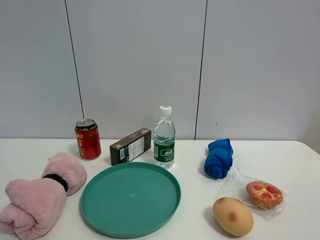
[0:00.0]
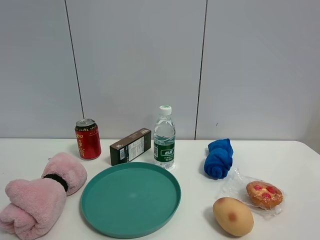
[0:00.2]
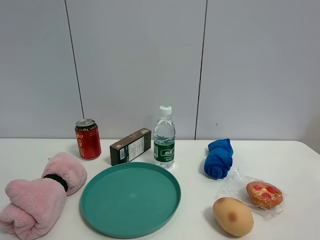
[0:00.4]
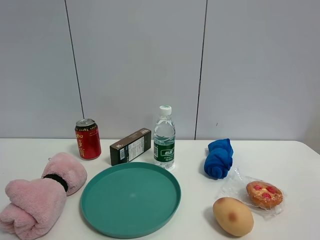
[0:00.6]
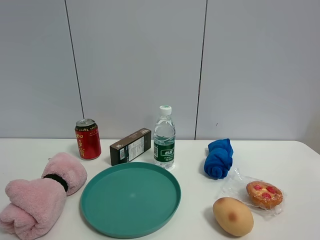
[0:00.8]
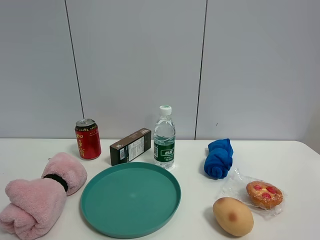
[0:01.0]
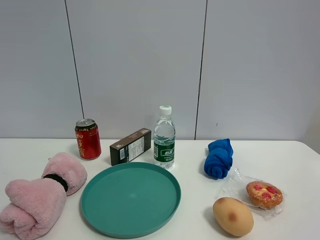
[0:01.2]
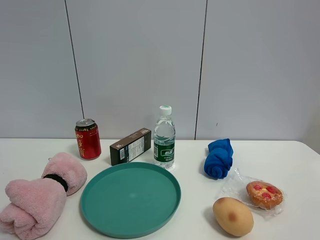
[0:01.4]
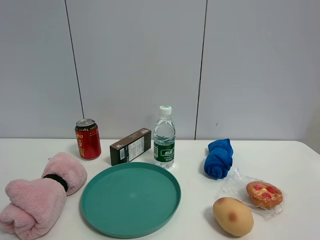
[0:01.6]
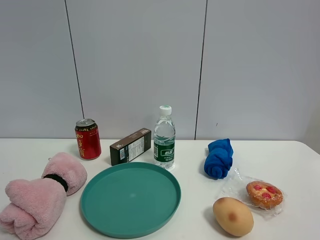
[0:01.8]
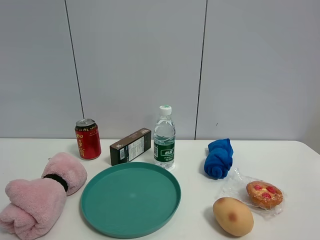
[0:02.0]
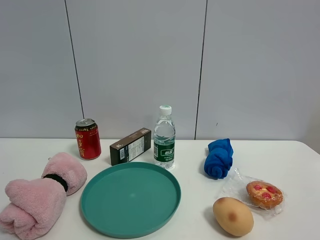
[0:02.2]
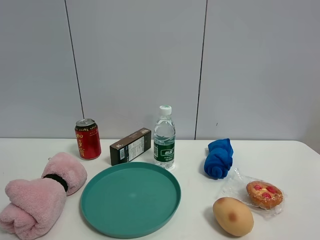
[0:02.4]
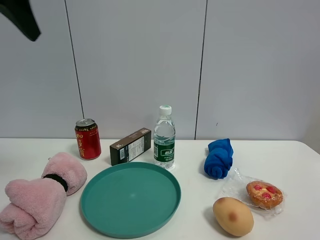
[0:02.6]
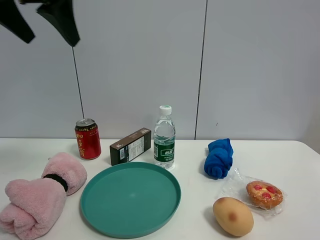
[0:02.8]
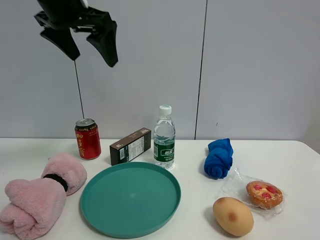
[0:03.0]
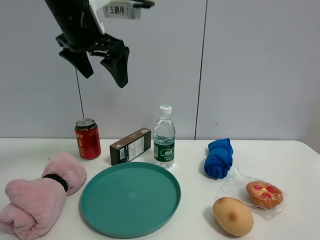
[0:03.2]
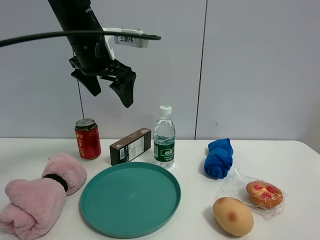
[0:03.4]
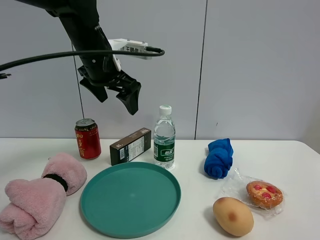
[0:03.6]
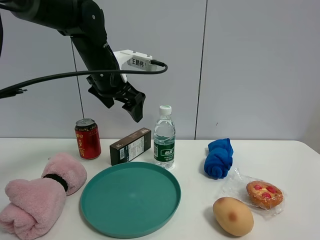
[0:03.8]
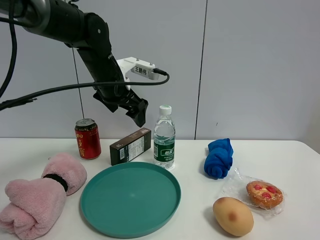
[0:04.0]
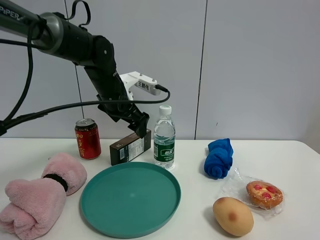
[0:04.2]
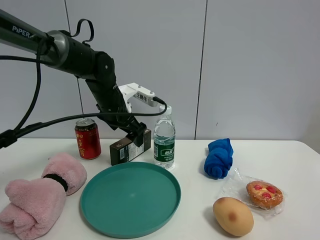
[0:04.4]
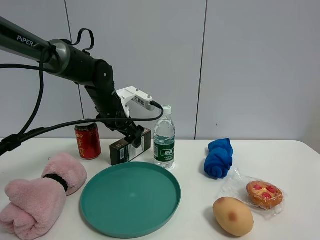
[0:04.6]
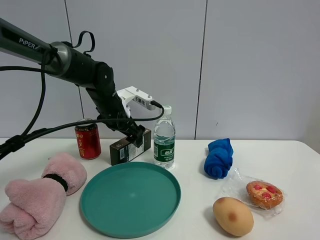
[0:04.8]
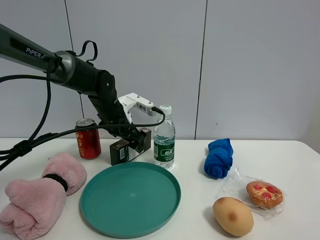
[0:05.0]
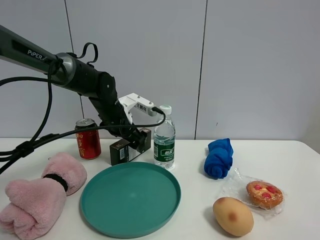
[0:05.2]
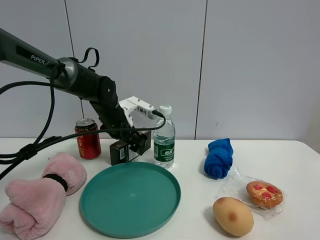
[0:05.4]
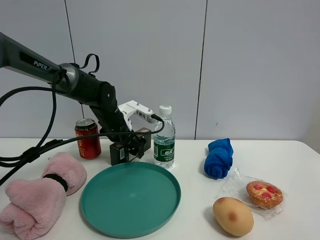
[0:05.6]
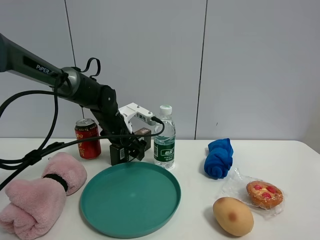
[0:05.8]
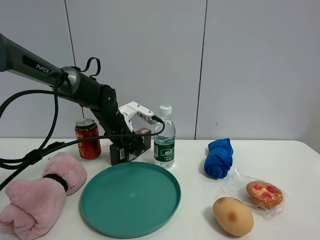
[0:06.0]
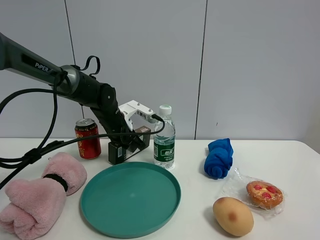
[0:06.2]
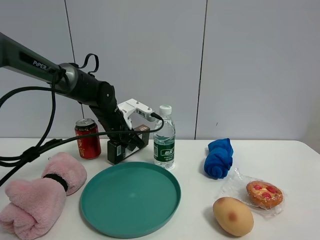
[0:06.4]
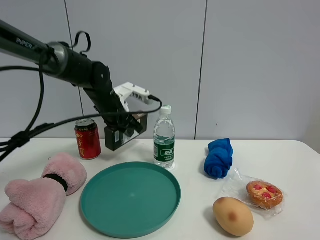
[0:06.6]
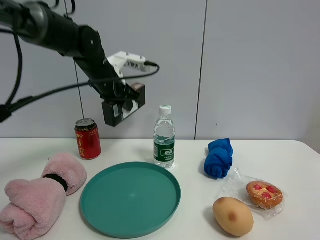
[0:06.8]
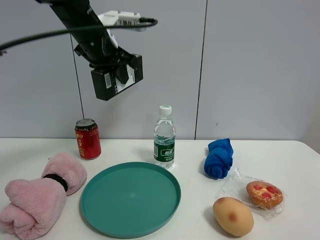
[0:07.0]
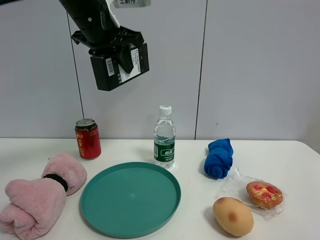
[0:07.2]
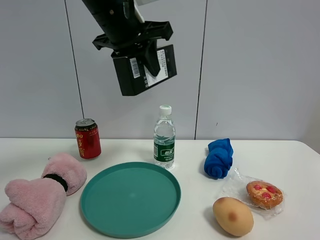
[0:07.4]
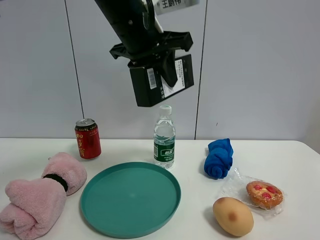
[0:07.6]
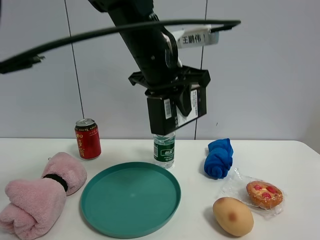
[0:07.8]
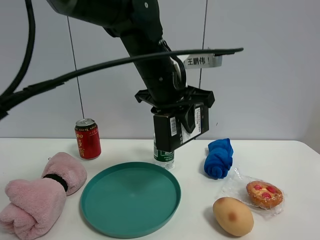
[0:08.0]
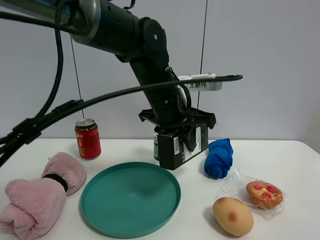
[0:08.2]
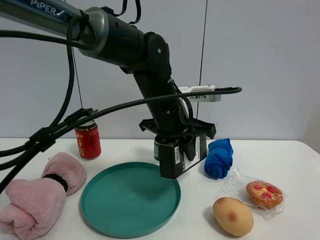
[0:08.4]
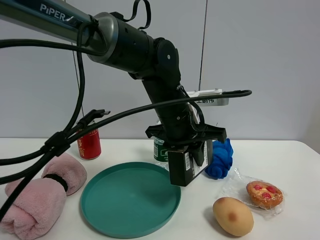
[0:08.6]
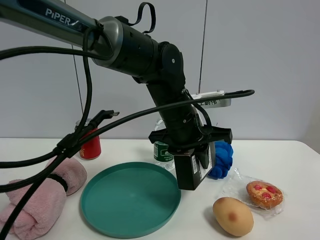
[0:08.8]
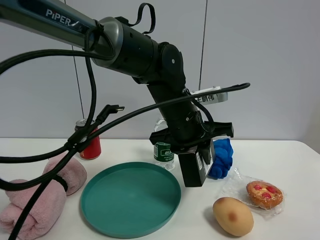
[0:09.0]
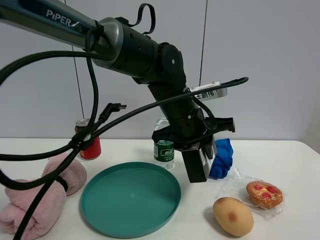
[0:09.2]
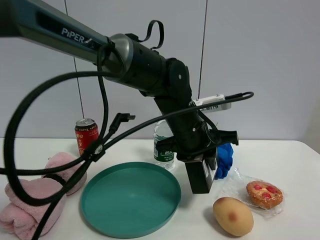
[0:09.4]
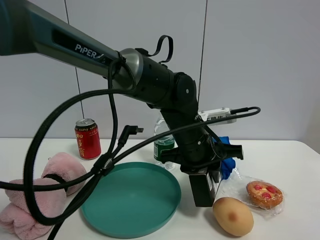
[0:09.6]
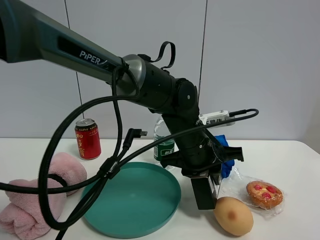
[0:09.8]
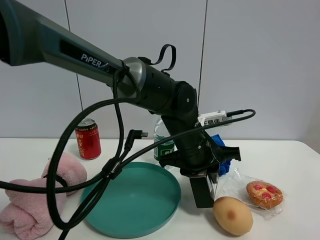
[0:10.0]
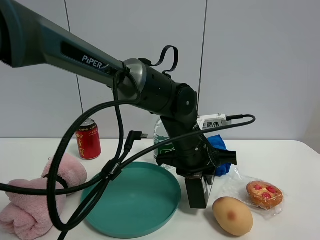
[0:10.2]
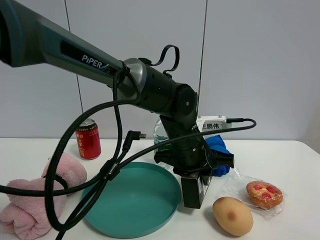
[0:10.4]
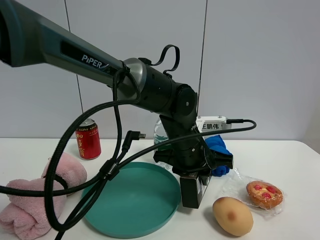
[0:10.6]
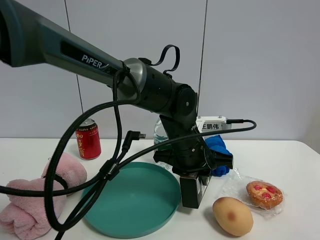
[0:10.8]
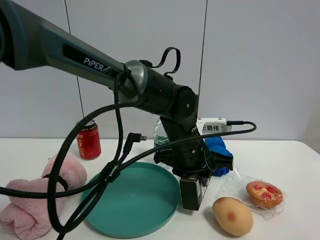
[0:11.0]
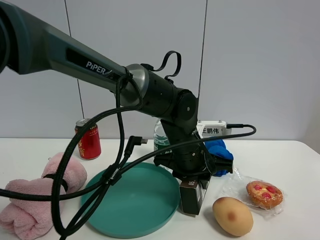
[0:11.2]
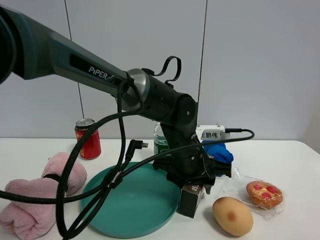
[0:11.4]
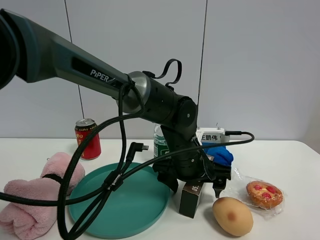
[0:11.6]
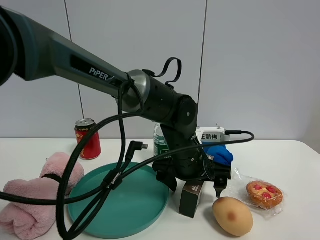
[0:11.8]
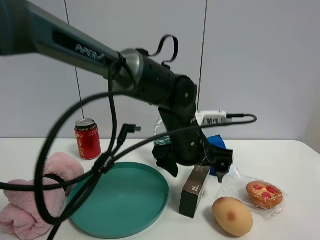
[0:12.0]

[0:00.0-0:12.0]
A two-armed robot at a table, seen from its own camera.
Task of the whole recording: the gripper move the object.
Step, 0:00.0 to 0:06.2: Grasp the brown box with the left gripper.
Step, 0:06.4 to 0:11.6: Place the brown box on the table with the left gripper.
0:01.6 to 0:03.0: The left gripper shifts some 40 cm forward and to the right.
0:03.0 to 0:04.4: The left gripper shifts roughly 25 cm downward and forward.
0:04.4 to 0:06.0: The left gripper is displaced downward by about 5 cm, and closes.
0:06.0 to 0:07.6: The left gripper heads upward and backward, covering some 25 cm.
0:07.6 to 0:09.0: The left gripper moves downward and to the right, approximately 15 cm.
0:09.0 to 0:10.4: The left gripper goes approximately 5 cm downward.
0:10.4 to 0:12.0: The left gripper opens its fingers.

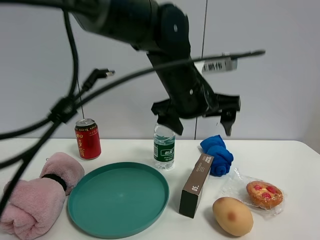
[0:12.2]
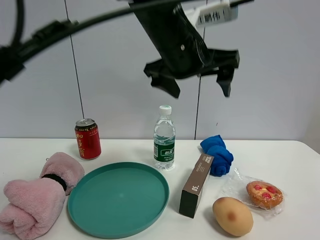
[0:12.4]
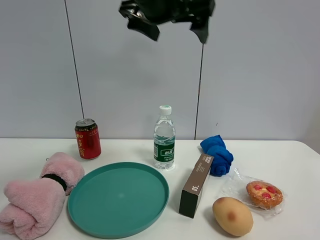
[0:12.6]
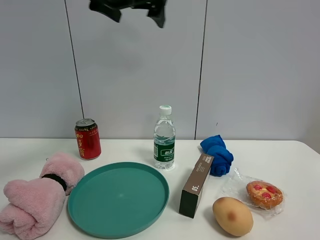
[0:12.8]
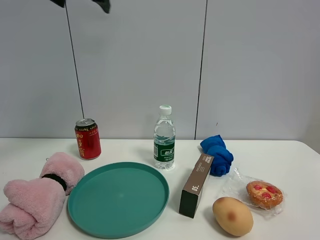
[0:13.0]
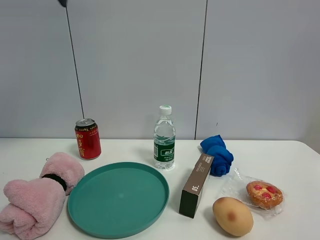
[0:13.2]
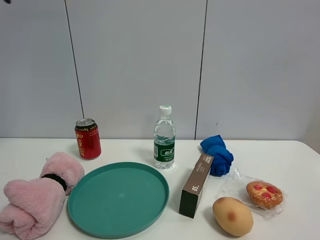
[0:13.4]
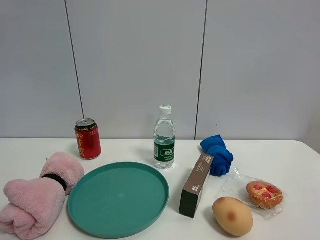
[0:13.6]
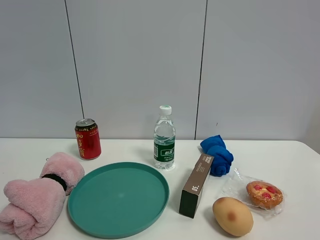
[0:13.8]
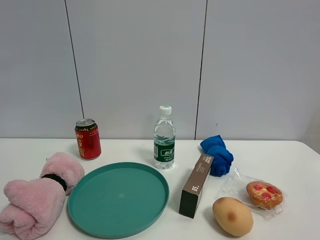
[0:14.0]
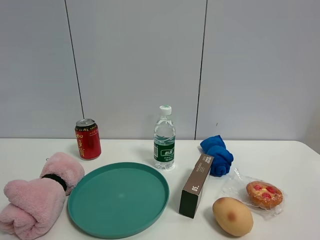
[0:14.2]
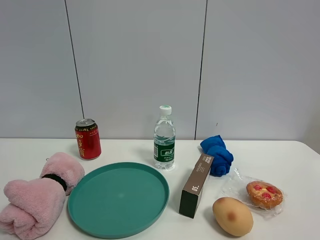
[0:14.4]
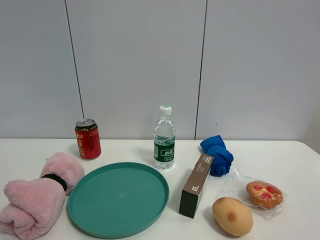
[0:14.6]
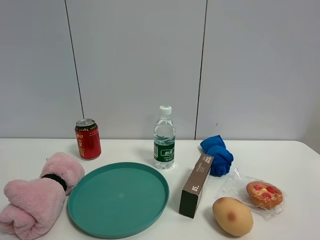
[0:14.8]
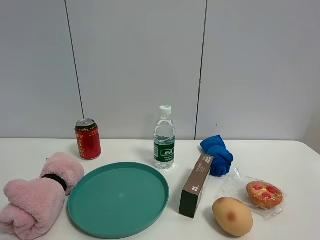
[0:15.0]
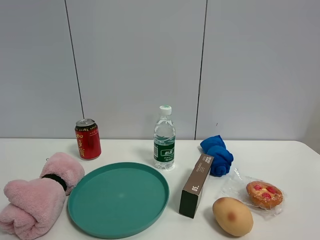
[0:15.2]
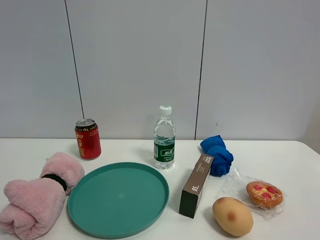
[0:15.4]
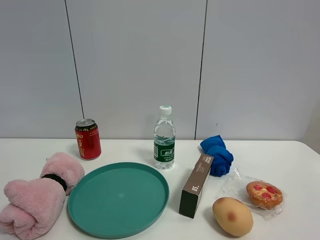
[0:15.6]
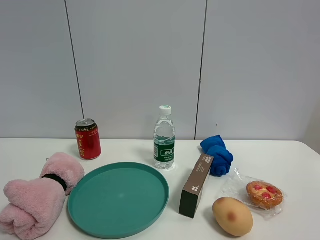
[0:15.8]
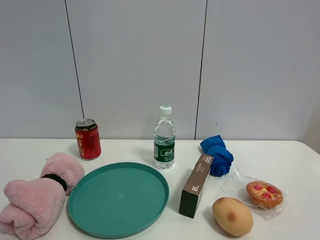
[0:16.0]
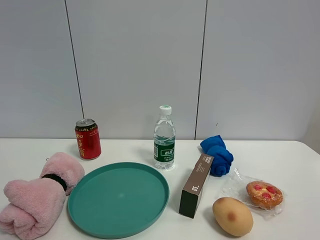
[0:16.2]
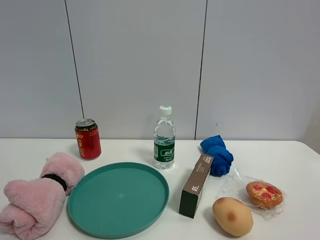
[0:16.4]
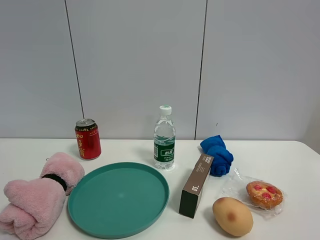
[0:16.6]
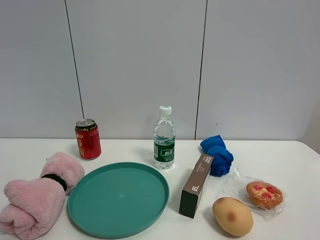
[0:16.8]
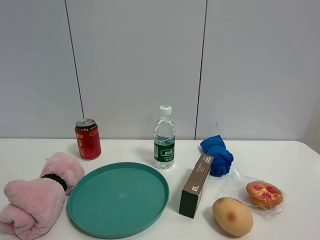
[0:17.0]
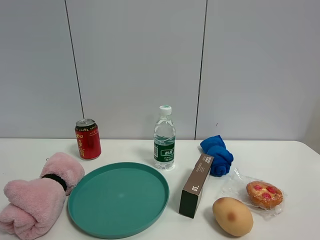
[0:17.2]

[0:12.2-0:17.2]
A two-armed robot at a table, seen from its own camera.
Task of the whole recording: the gripper move the object.
0:12.2 to 0:13.8: The left gripper travels to the left by some 40 cm.

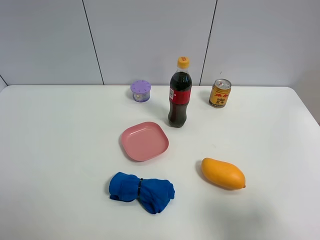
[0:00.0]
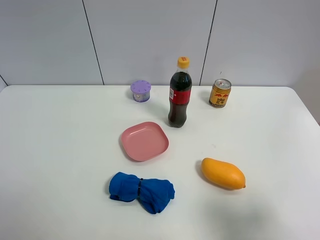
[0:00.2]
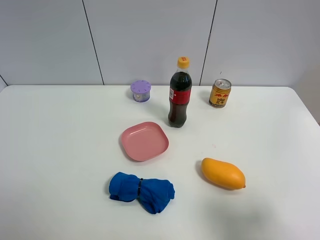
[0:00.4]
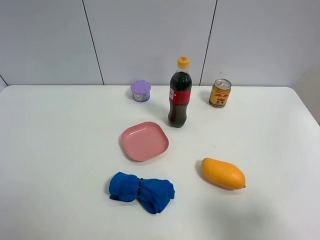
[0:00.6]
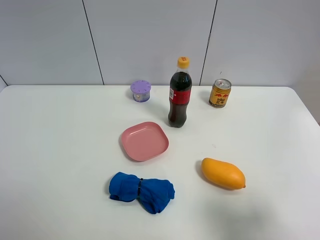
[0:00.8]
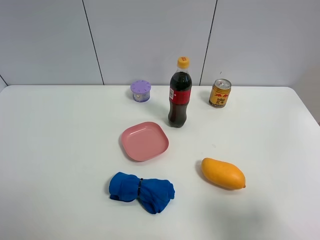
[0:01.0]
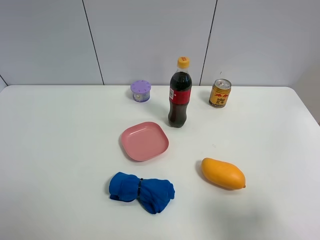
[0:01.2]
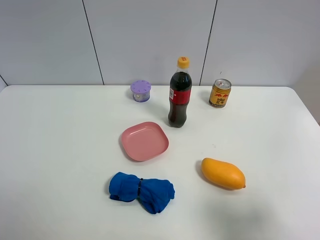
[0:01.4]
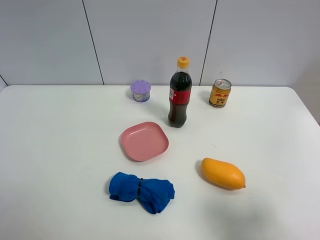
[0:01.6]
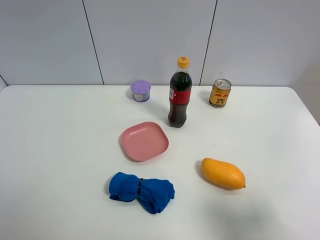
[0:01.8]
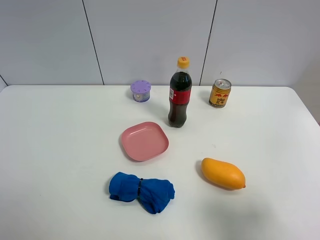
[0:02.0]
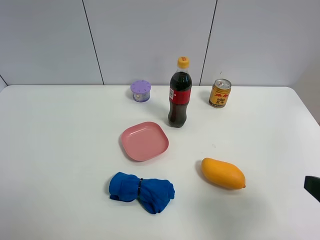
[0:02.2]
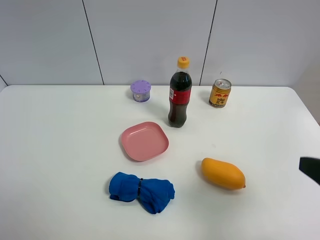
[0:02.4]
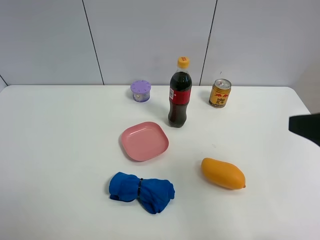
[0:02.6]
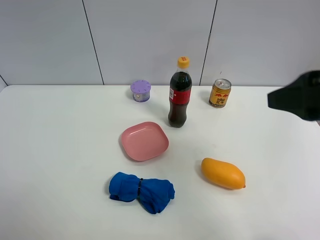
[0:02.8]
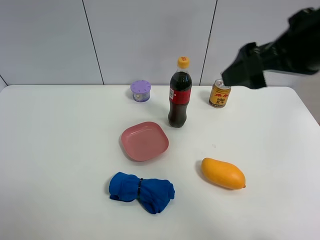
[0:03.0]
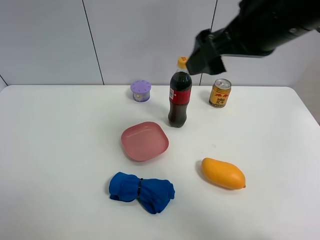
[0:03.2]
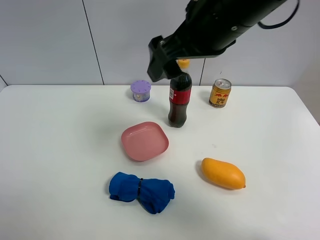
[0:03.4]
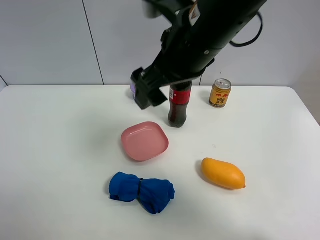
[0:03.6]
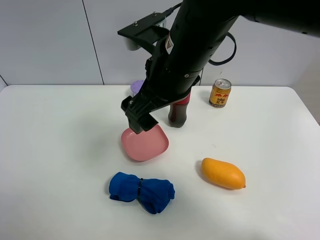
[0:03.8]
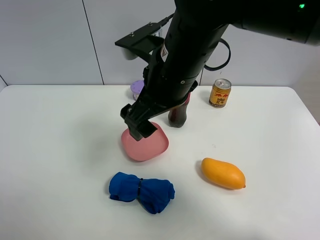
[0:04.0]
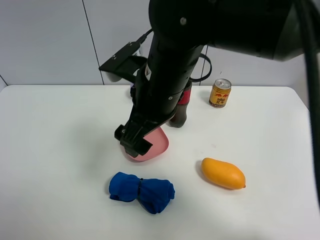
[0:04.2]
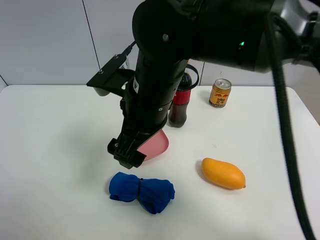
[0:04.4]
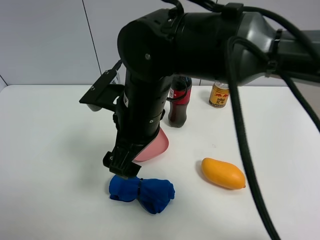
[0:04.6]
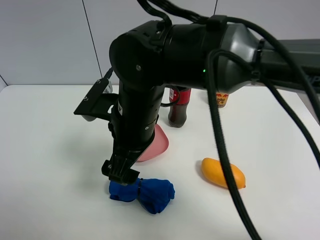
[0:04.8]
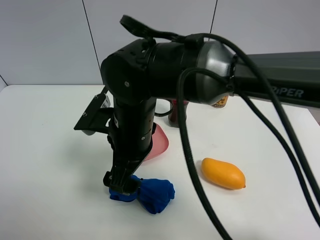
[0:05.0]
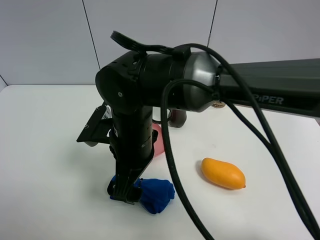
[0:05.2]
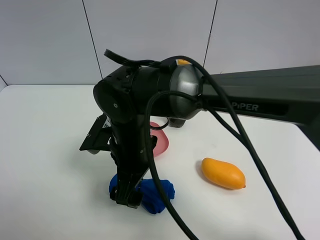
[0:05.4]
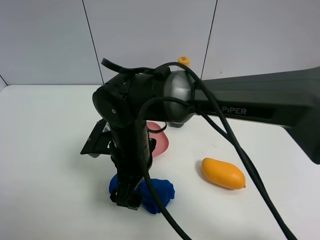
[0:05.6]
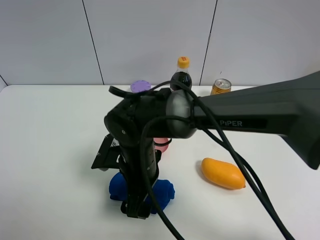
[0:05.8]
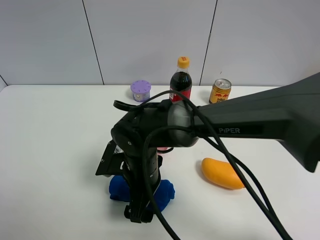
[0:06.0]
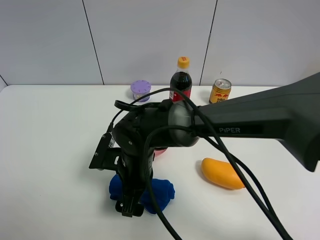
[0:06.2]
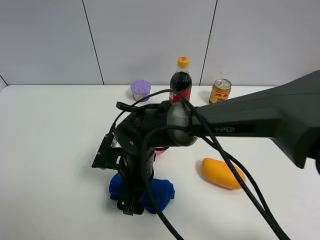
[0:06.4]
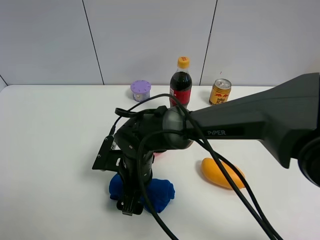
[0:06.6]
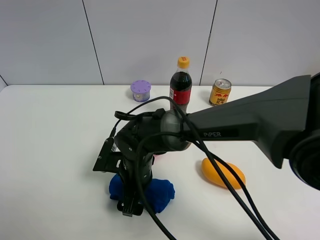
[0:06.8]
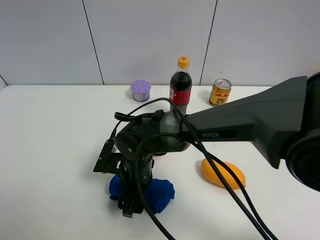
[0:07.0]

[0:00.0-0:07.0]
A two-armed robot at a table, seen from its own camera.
Task of the whole recording: the gripper move the object.
0:00.0 to 0:01.4: The two grippers keep their place.
0:01.4 to 0:02.8: The right gripper shifts about 20 cm forward, upward and to the left.
0:02.8 to 0:04.2: The right gripper moves to the left, approximately 25 cm.
0:04.2 to 0:05.6: The right gripper is displaced downward by roughly 10 cm.
0:05.6 to 0:07.0: The right gripper is displaced downward by about 10 cm, and closes its fingers.
